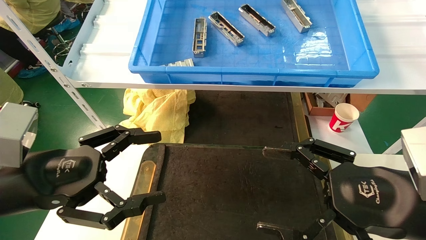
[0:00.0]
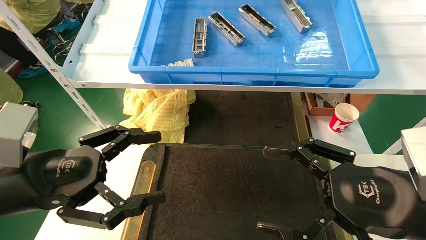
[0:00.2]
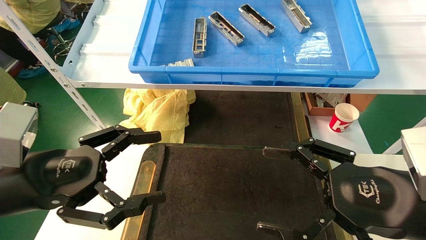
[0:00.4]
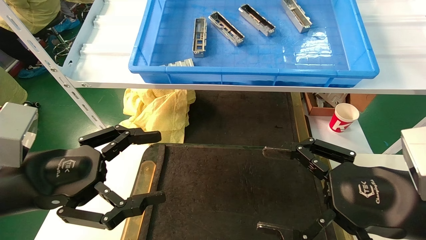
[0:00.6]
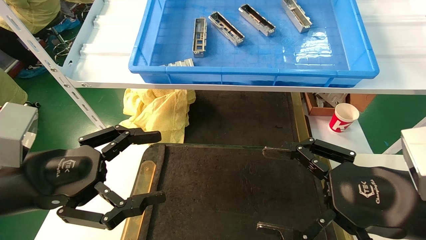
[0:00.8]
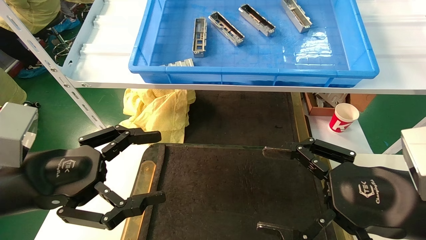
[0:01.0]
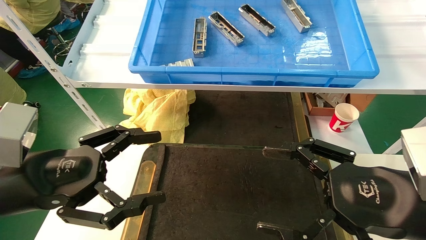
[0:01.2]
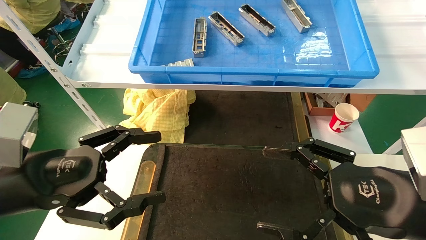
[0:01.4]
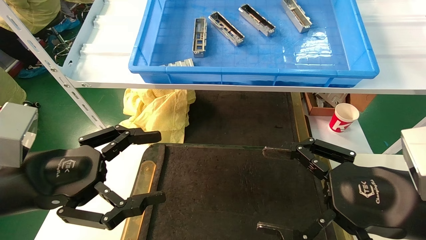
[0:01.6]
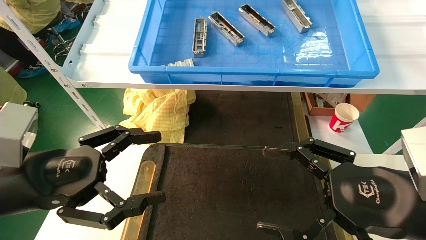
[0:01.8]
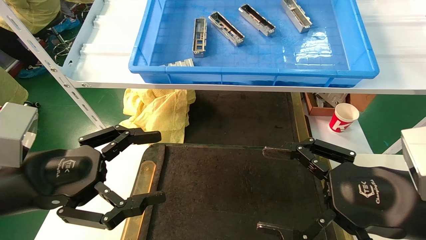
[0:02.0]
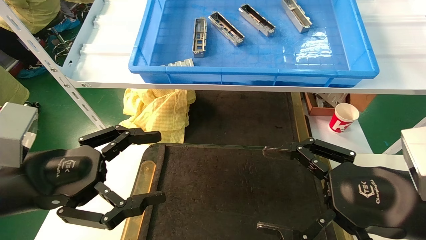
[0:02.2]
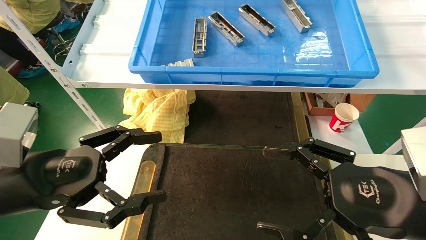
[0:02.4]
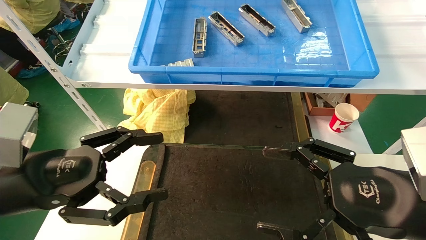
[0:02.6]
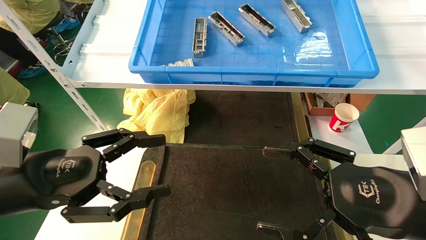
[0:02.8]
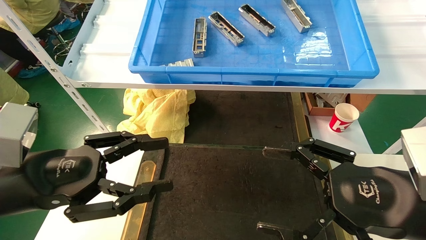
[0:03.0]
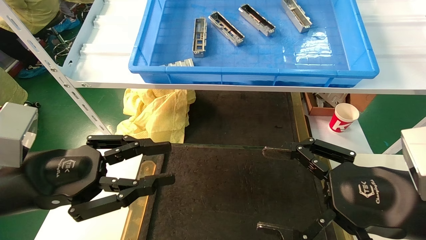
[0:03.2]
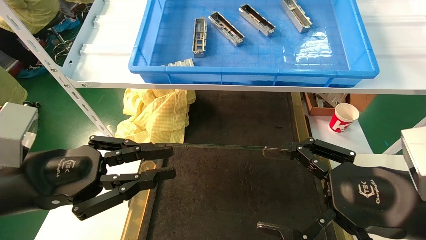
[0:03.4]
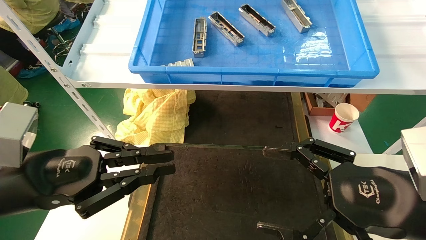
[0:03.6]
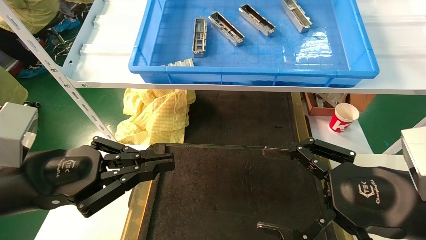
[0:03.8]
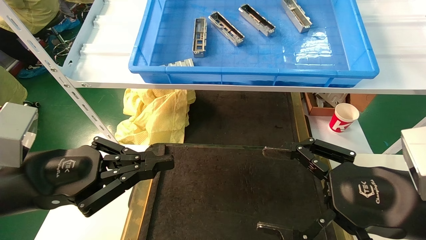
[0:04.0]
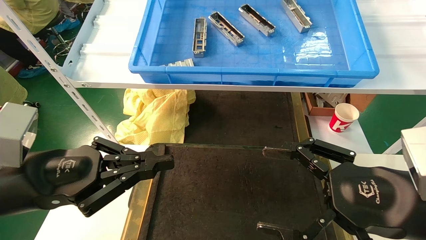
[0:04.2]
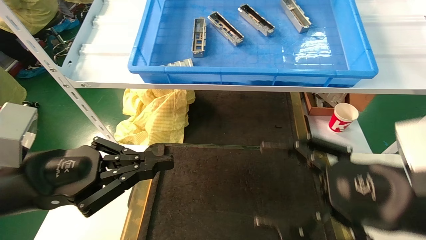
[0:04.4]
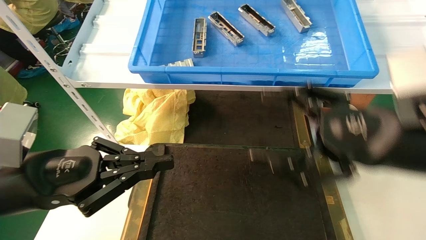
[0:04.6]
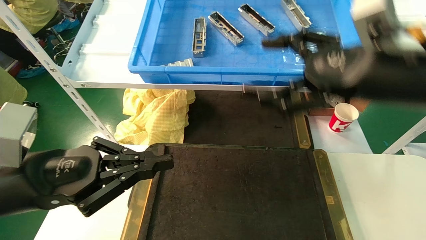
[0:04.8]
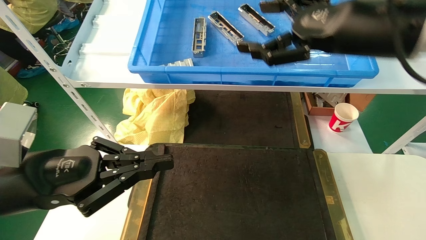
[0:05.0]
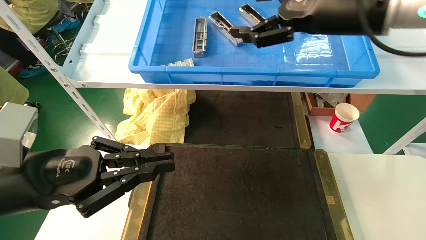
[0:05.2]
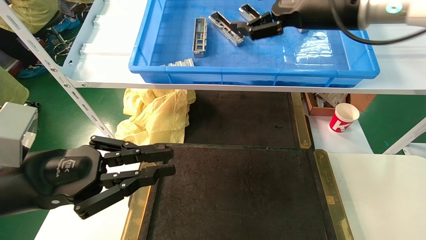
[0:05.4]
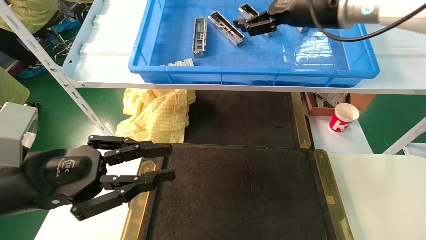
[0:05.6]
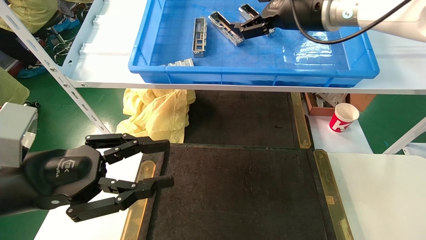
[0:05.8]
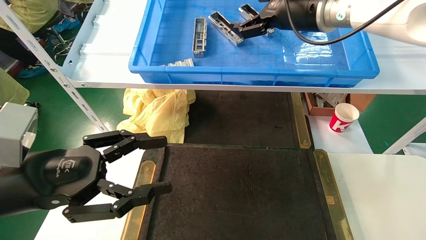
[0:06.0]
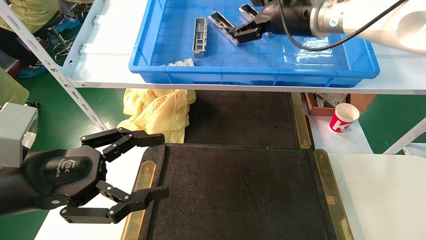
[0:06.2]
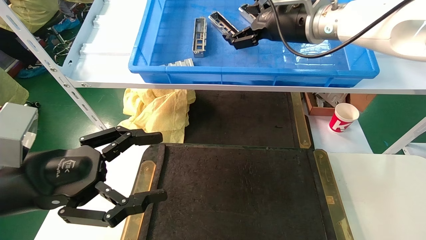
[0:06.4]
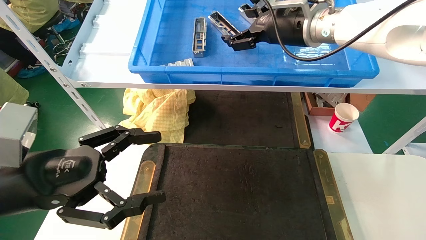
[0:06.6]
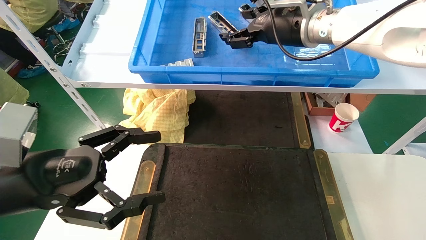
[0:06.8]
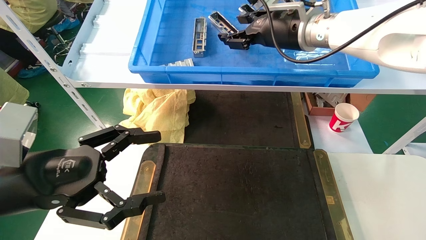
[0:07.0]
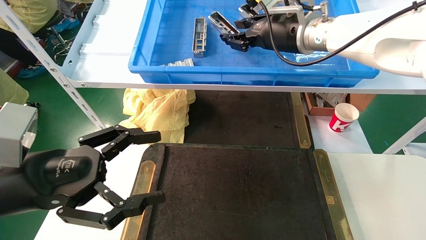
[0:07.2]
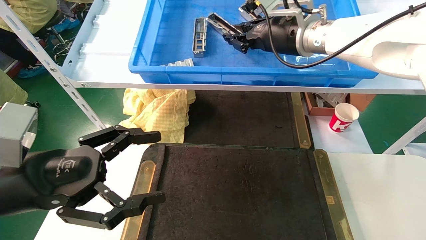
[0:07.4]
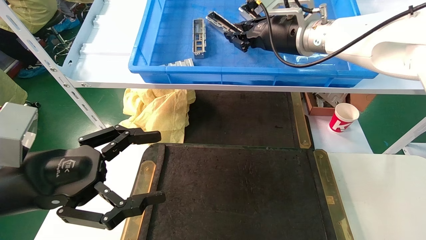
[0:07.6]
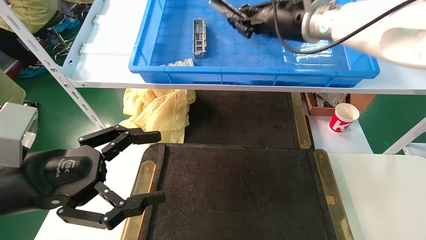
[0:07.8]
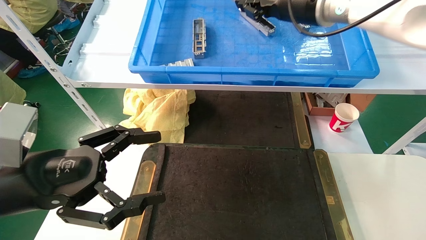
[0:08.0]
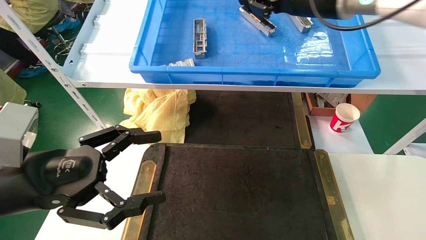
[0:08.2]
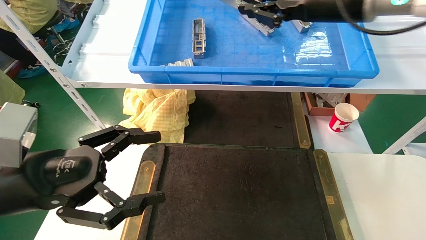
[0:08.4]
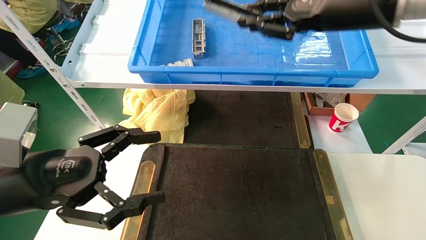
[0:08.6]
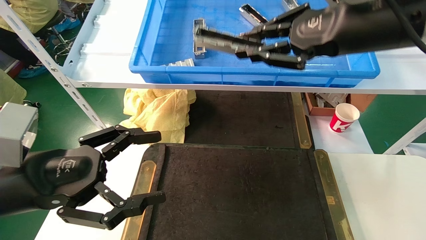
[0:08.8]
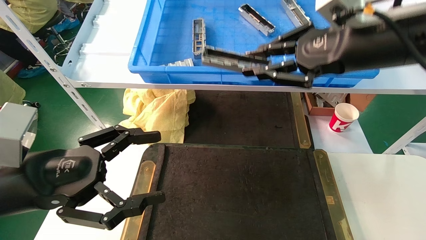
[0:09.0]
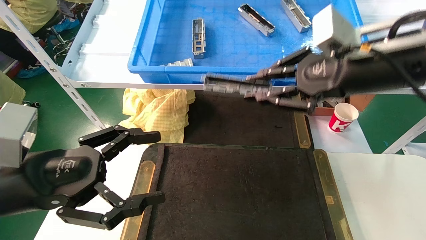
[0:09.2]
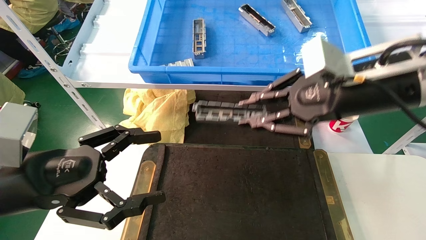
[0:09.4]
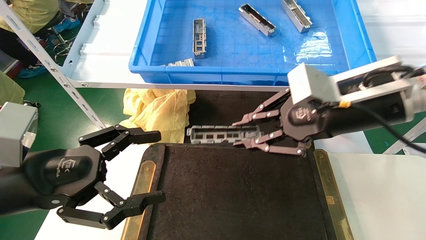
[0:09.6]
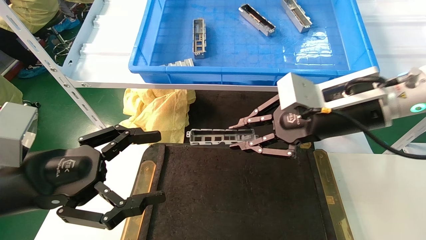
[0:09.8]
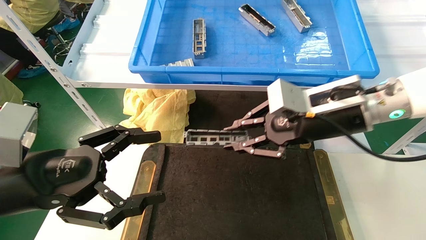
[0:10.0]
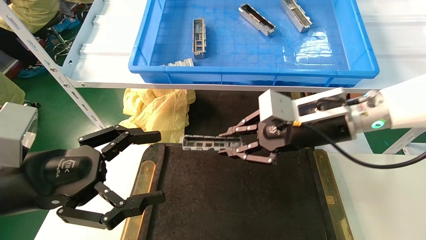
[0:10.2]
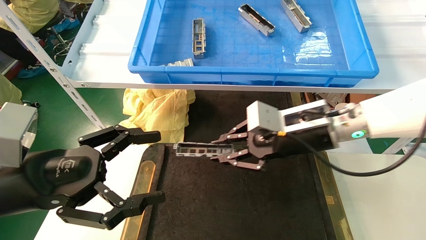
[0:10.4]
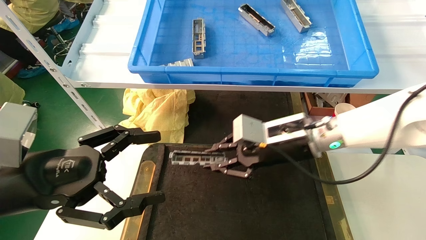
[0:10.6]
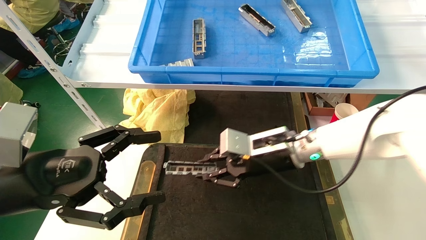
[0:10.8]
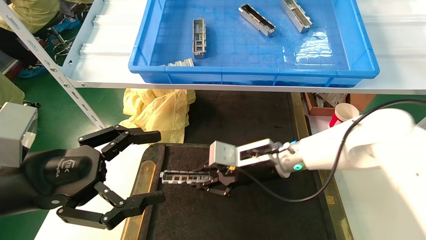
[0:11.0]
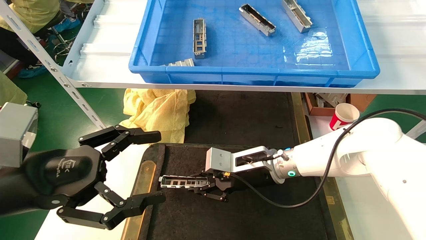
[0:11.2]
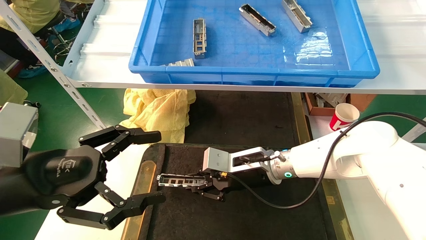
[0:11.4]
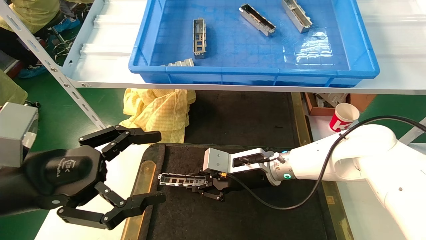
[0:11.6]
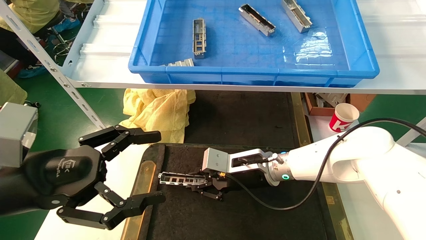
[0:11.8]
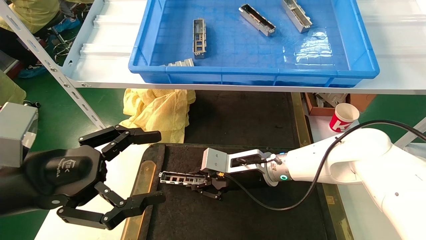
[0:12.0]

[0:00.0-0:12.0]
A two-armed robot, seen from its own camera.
Task of the whole recording: grasp the part and place them on the black container.
Step, 0:04.8 to 0:08.0: Pick up and lift the front USB bracket from the feeding area.
0:00.0 to 0:03.0: Both grippers stay put.
0:03.0 to 0:04.4: The left gripper closes its fingers.
0:04.4 to 0:06.0: The left gripper opens, while the right gripper travels forward, upward and to the left by roughly 30 cm.
0:06.0 to 0:07.6: The left gripper opens its fingers. Meanwhile the right gripper closes.
0:07.6 to 0:09.0: The right gripper travels backward and to the right by roughly 15 cm.
0:09.0 to 0:10.4: The right gripper heads downward and to the left, covering approximately 15 cm.
0:10.4 to 0:12.0: The right gripper travels downward, to the left and forward by about 15 cm.

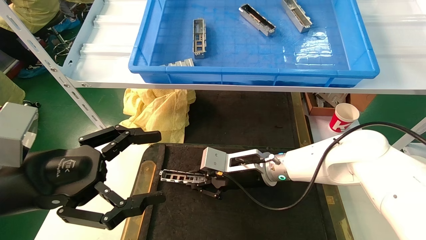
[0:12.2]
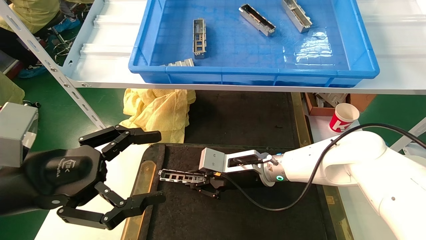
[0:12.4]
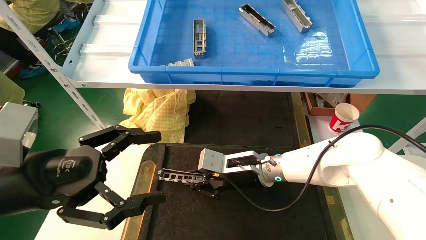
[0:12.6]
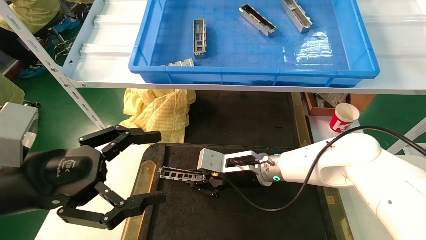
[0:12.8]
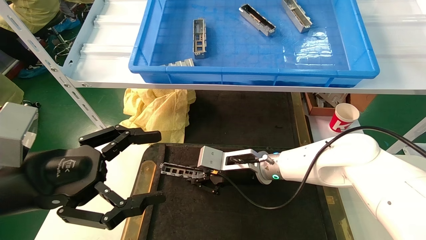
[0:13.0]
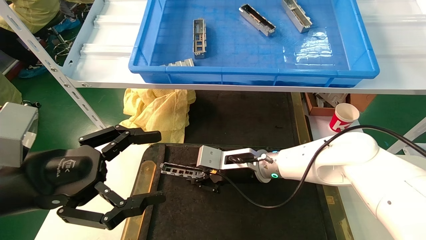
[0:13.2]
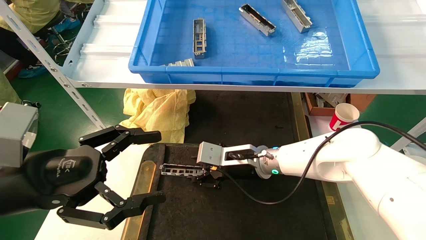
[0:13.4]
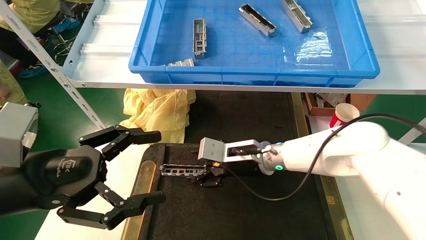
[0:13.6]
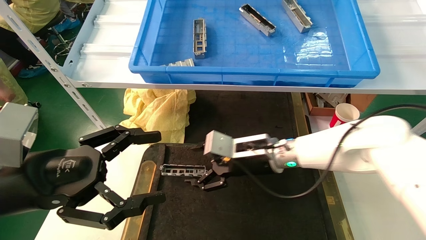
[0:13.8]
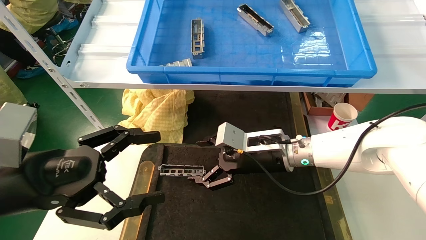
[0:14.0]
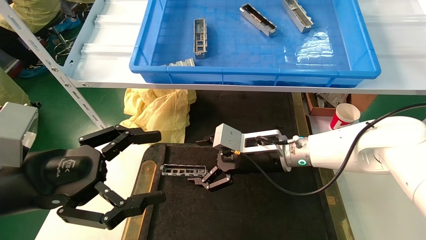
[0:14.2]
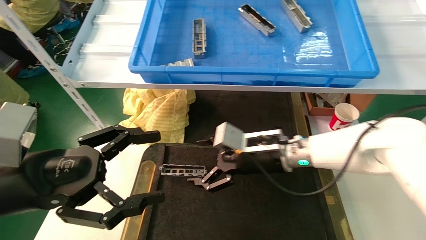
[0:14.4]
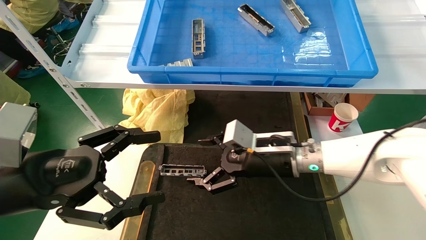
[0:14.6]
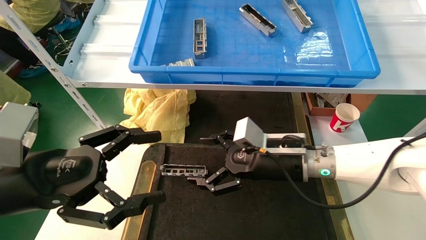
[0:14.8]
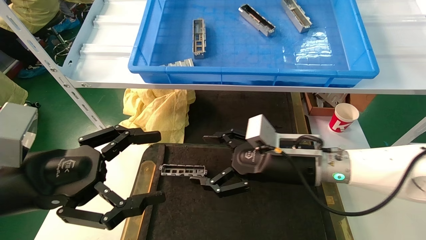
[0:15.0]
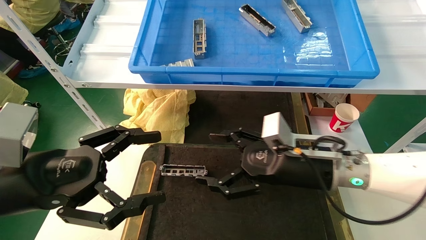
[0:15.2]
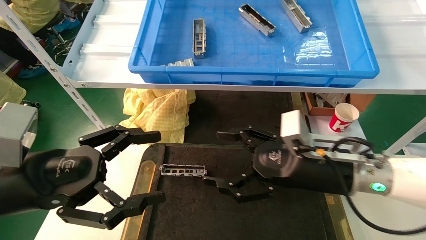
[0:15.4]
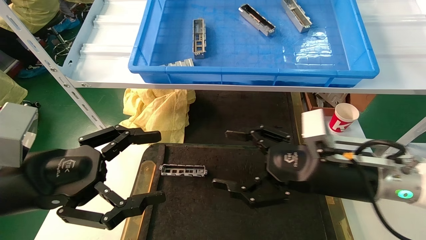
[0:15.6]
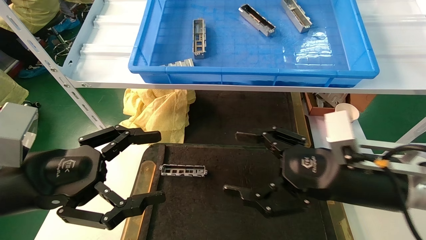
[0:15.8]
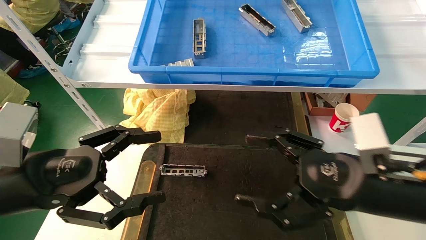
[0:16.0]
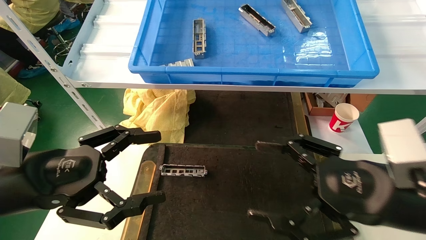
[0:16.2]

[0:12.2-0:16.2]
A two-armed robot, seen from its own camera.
Task of the whole recording: grasp the part and place them on the black container.
0:12.2 to 0:13.6: The right gripper opens its fingers.
0:13.6 to 0:14.8: The right gripper is displaced to the right and backward by roughly 10 cm, and opens its fingers.
0:14.8 to 0:16.2: The right gripper moves backward and to the right, some 20 cm.
